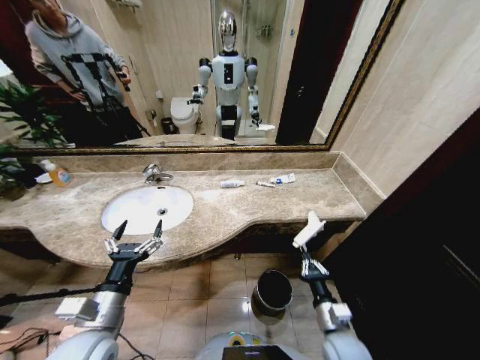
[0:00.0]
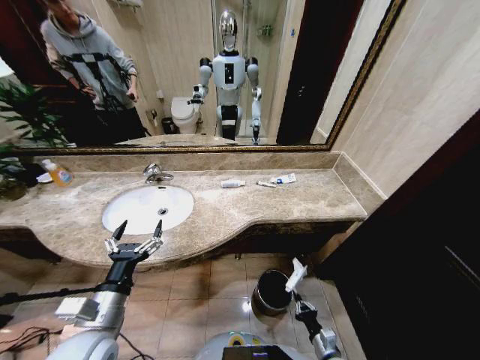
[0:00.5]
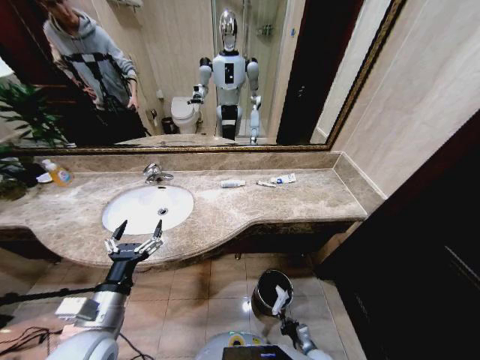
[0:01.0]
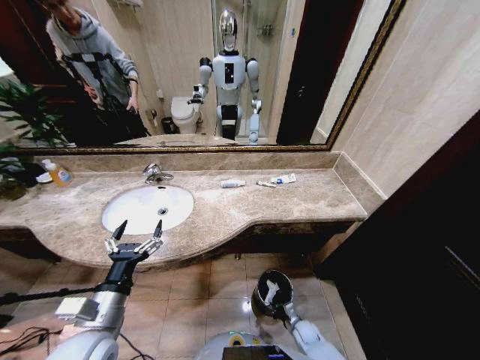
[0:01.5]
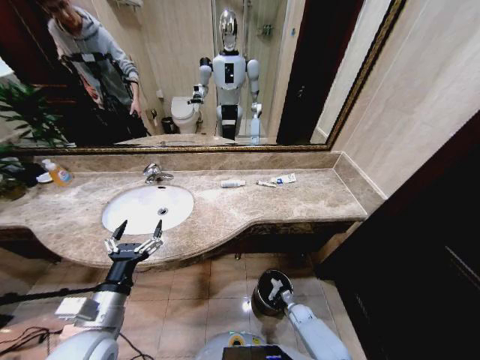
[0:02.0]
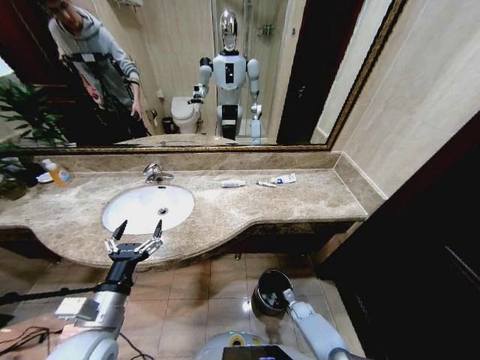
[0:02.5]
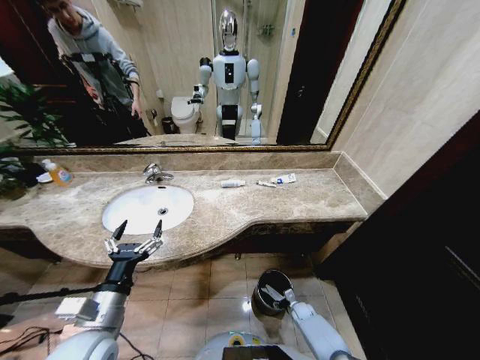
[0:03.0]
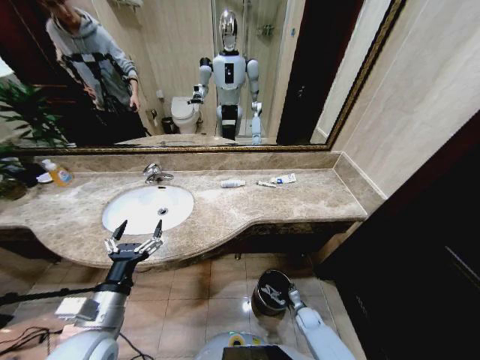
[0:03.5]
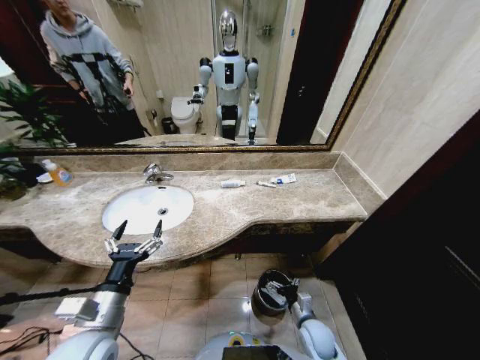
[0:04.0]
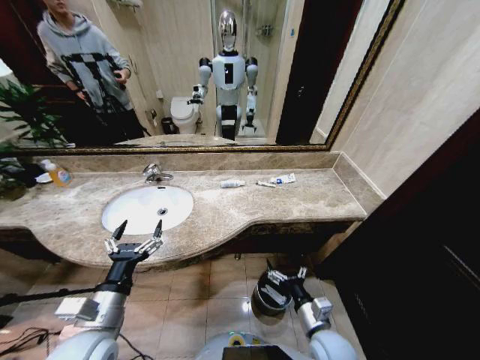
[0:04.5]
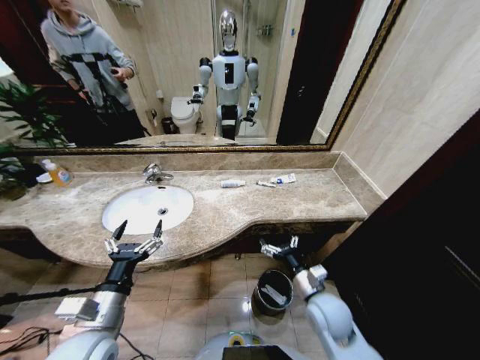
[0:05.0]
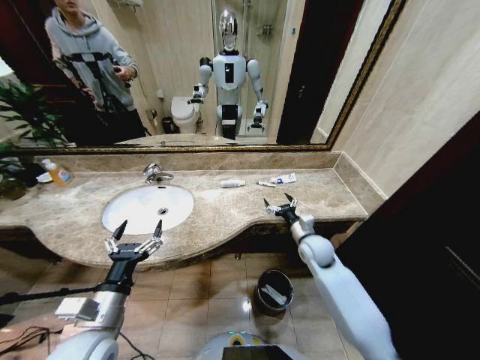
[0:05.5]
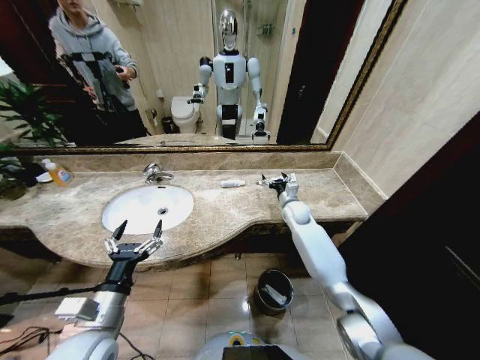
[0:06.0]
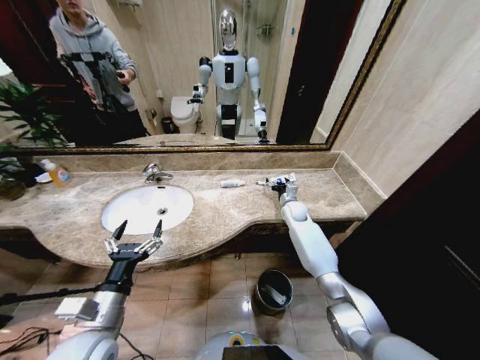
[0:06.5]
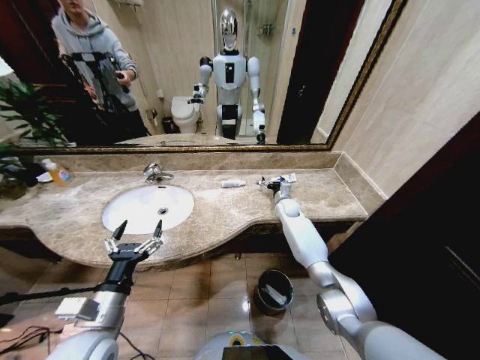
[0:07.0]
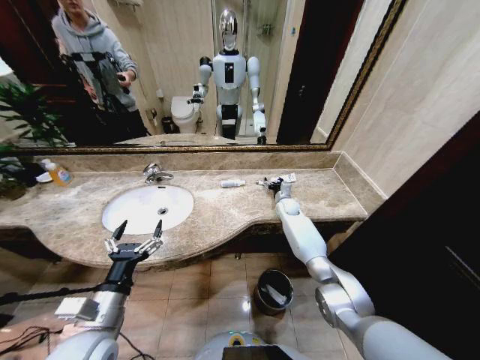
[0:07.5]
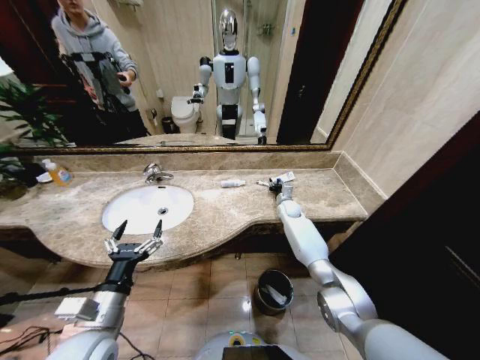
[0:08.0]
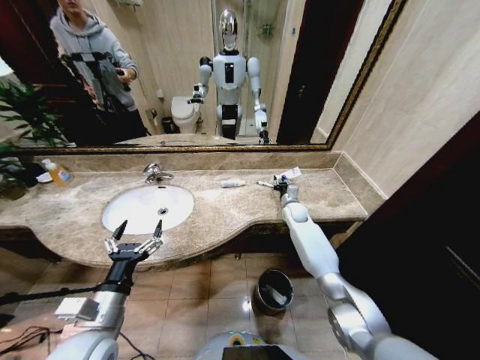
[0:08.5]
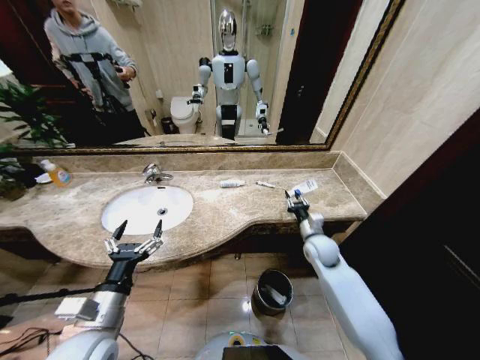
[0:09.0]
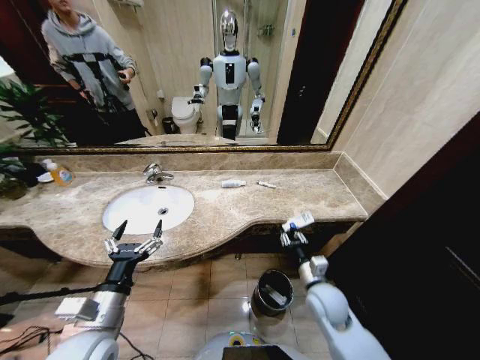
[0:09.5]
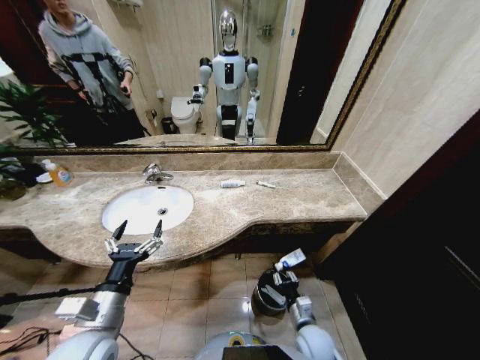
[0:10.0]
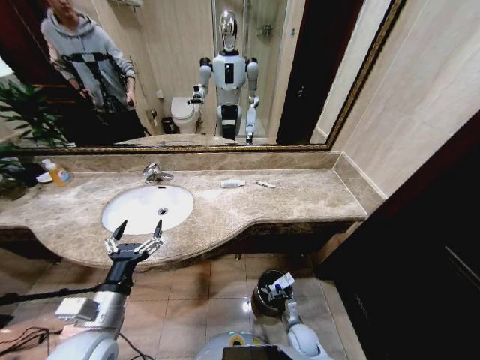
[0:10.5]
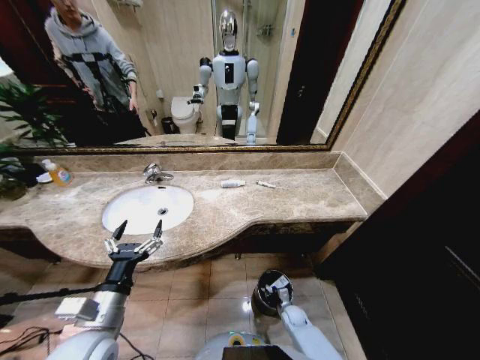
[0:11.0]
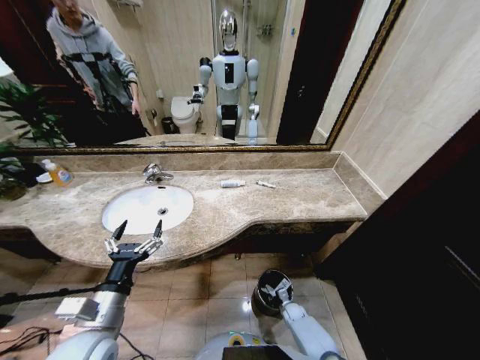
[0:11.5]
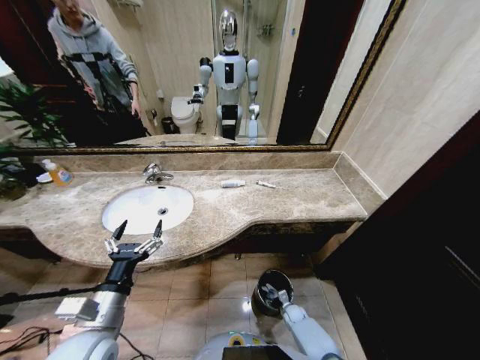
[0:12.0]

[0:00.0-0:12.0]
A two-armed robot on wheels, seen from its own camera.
Task of the whole recording: Pick up the trash from the sink and place it in the trash bin.
0:00.0 to 0:02.0: The right gripper moves downward and forward, about 30 cm.
0:02.0 to 0:04.0: The right gripper is displaced upward and backward by about 20 cm, and opens.
0:04.0 to 0:06.0: The right gripper is displaced forward and upward by some 40 cm.
0:06.0 to 0:08.0: The right gripper travels downward by some 5 cm, and closes up.
0:08.0 to 0:10.0: The right gripper moves backward, approximately 40 cm.
0:10.0 to 0:12.0: The right gripper moves downward and forward, roughly 25 cm.

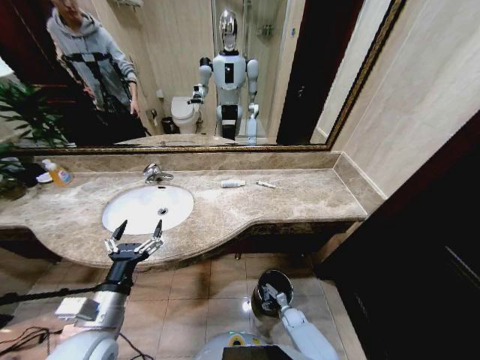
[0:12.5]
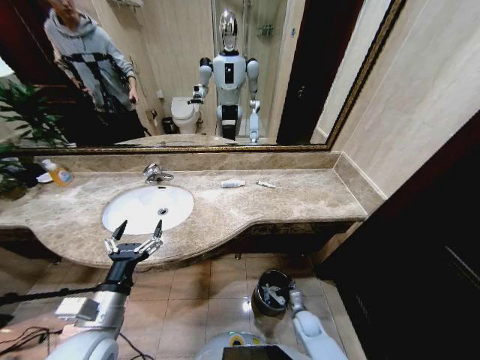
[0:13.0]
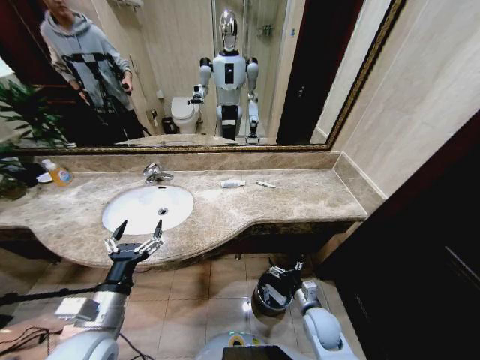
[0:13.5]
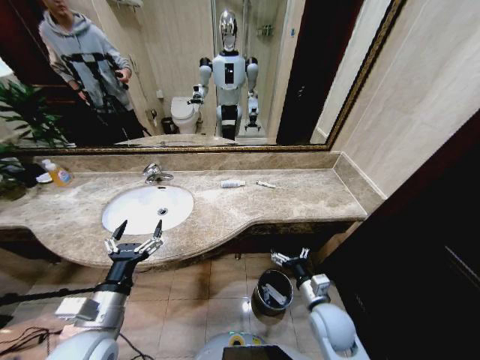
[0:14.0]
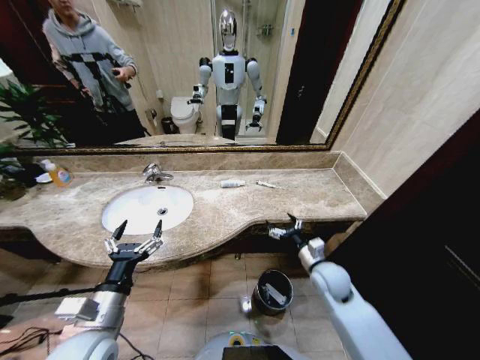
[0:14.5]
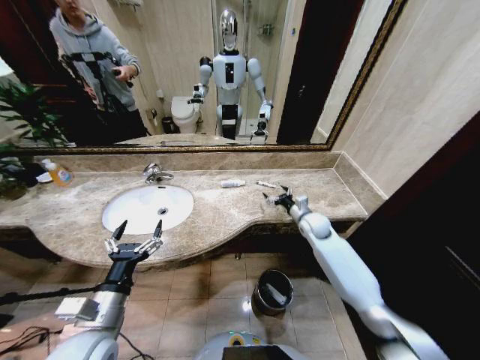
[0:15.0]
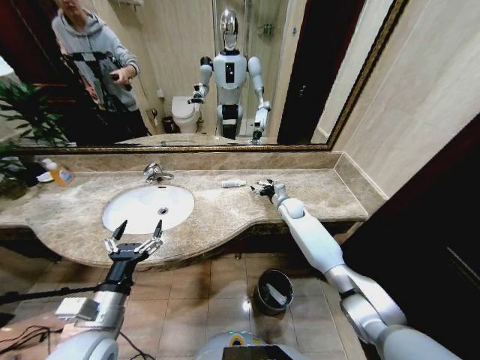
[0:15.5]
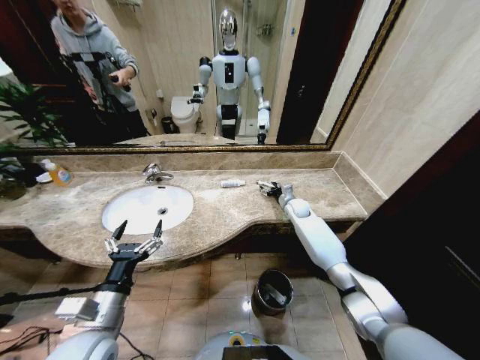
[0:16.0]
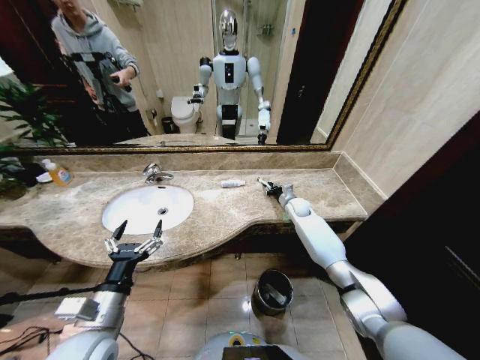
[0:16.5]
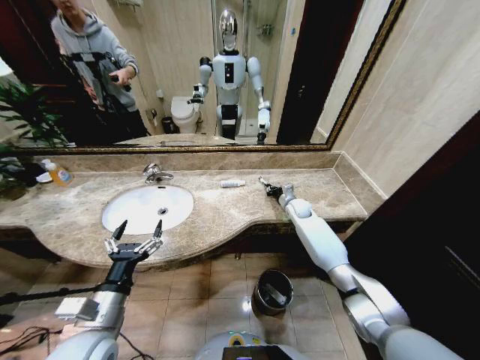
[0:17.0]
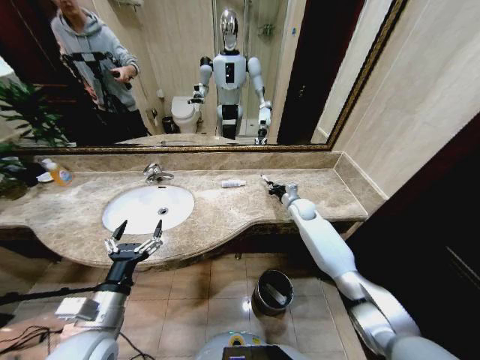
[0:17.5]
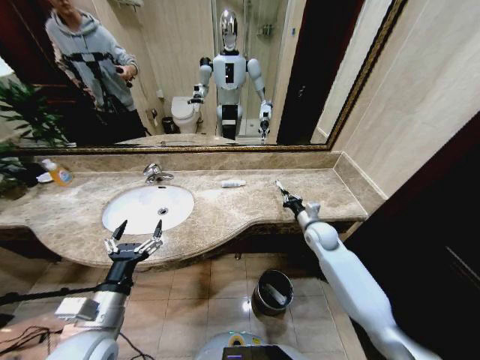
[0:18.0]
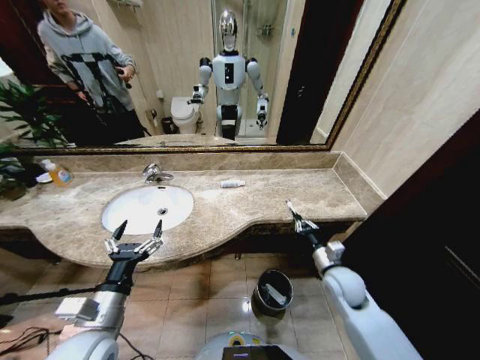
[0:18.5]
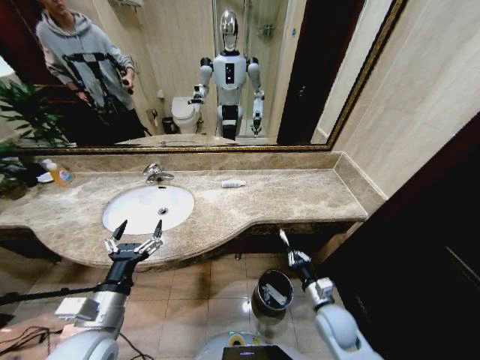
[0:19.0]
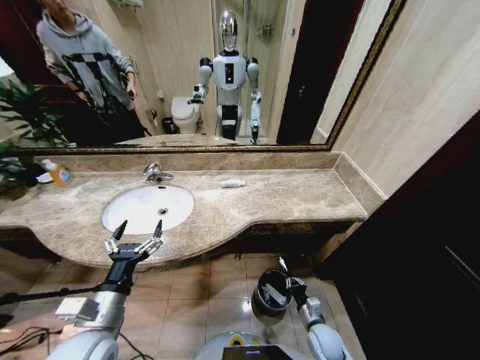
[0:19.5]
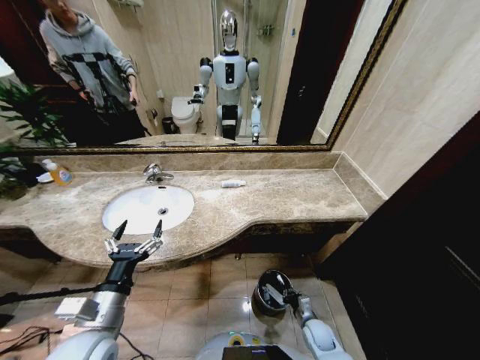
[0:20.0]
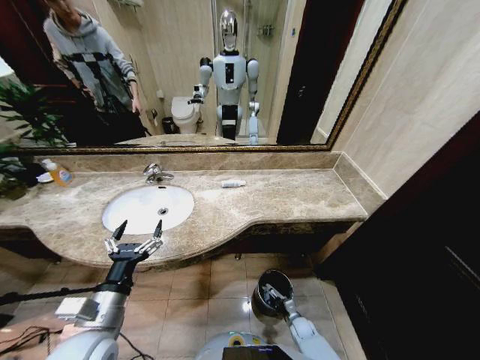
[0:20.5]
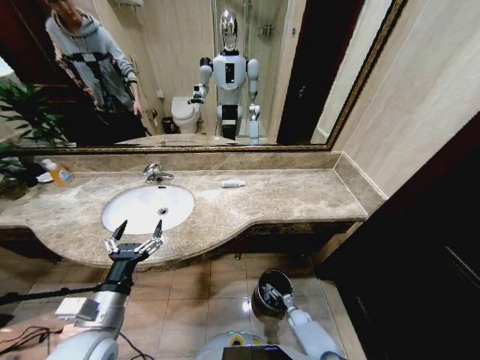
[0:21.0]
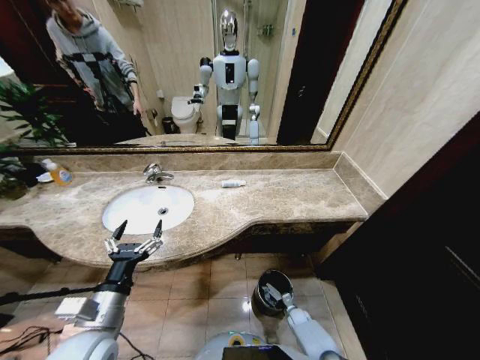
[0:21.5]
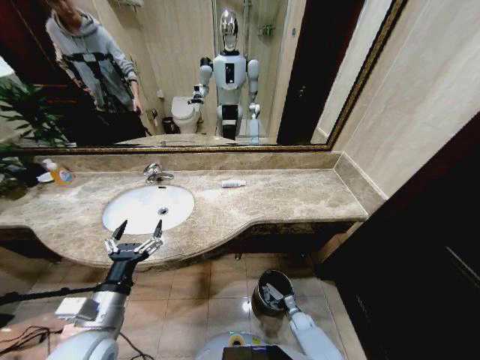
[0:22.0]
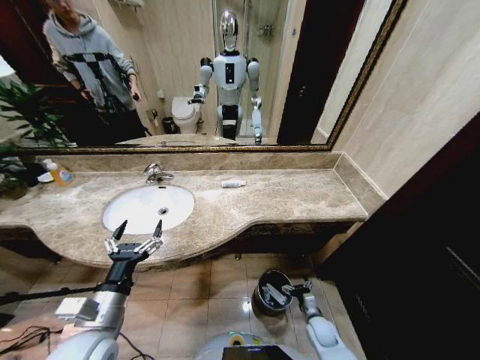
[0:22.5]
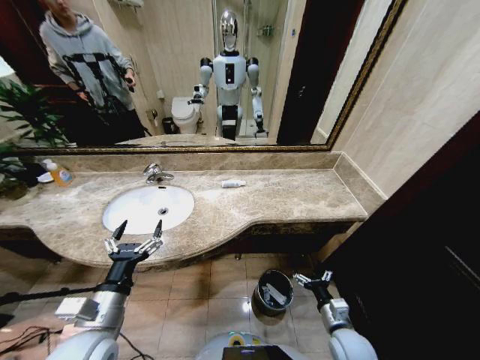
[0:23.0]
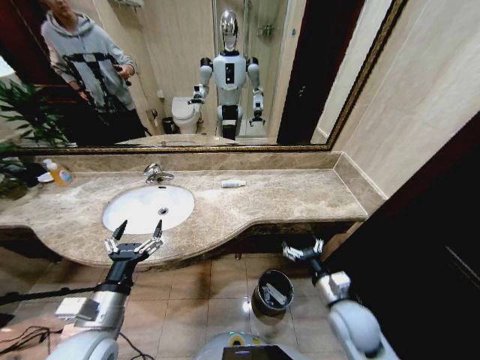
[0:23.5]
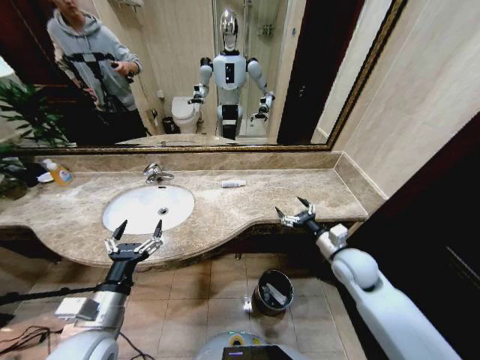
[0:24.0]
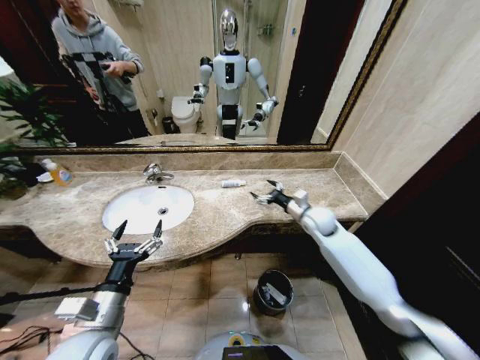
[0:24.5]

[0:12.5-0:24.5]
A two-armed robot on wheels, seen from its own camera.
Task of the whole recording: Pick up the trash from the sink and place it in the trash bin.
0:12.5 to 0:14.5: The right gripper goes approximately 35 cm upward.
0:14.5 to 0:16.5: The right gripper moves forward, about 30 cm, and closes.
0:16.5 to 0:18.5: The right gripper is displaced backward by about 30 cm.
0:18.5 to 0:20.5: The right gripper goes roughly 35 cm downward.
0:20.5 to 0:22.5: The right gripper moves upward, roughly 10 cm, and opens.
0:22.5 to 0:24.5: The right gripper is displaced upward and forward by some 40 cm.

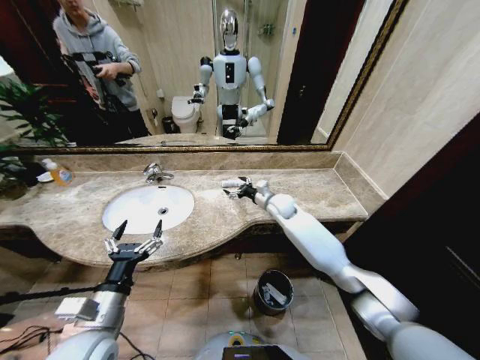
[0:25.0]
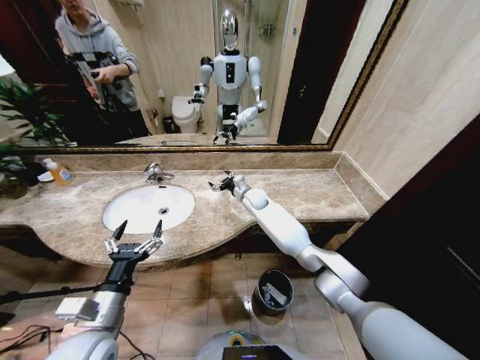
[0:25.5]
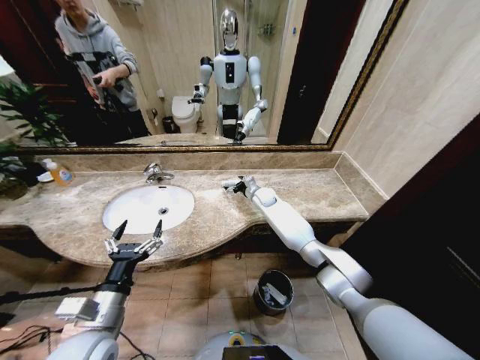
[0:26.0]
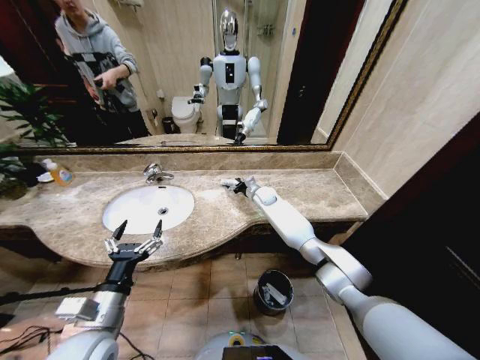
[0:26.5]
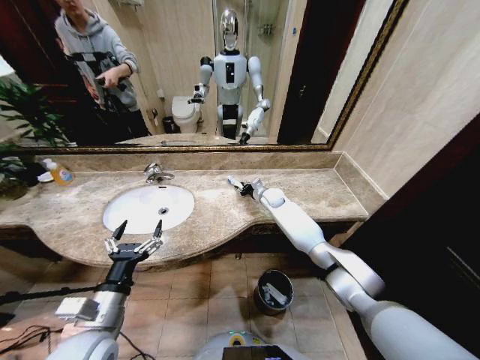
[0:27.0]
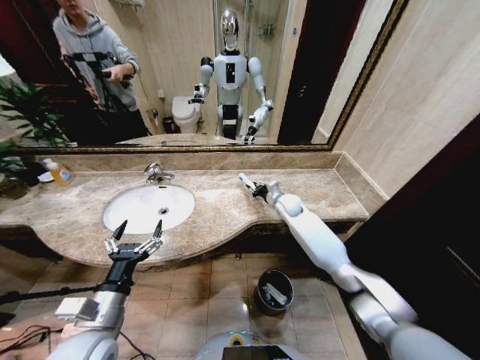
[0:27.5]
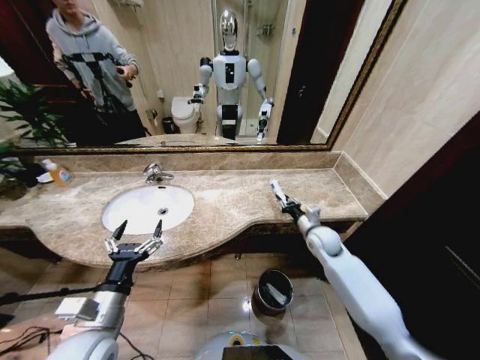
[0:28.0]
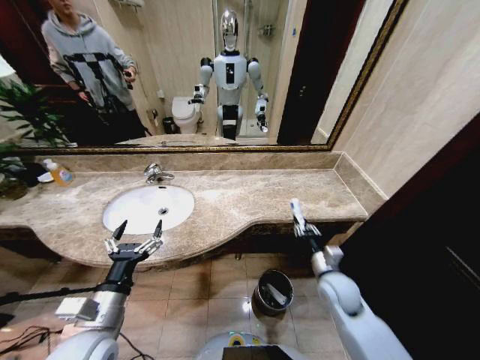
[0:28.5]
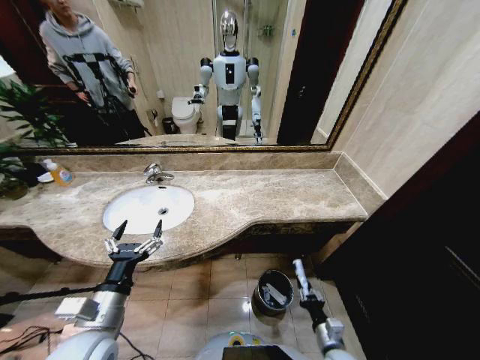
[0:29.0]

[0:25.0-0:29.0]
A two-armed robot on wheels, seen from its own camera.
Task of the whole recording: Pick up the trash from the sink and place it in the trash bin.
0:25.0 to 0:27.0: The right gripper travels forward by approximately 10 cm, and closes.
0:27.0 to 0:29.0: The right gripper goes about 50 cm backward.
